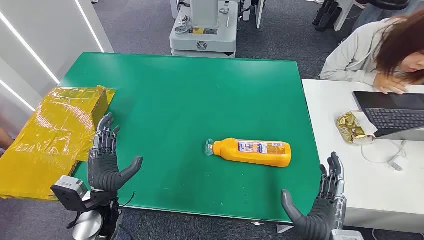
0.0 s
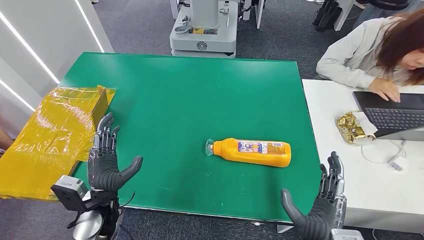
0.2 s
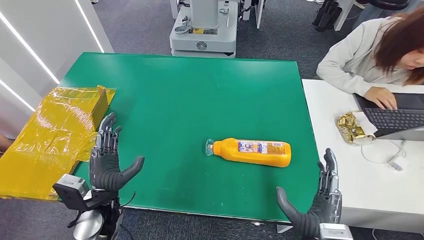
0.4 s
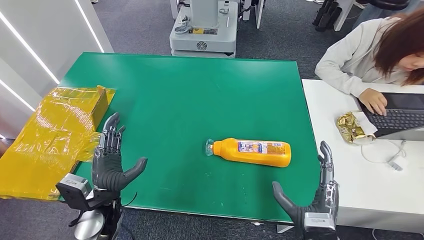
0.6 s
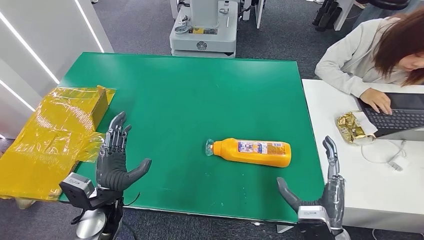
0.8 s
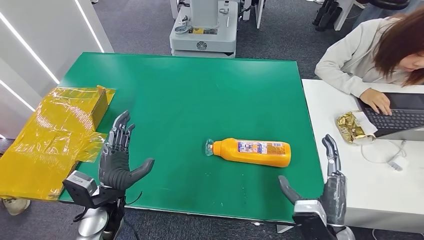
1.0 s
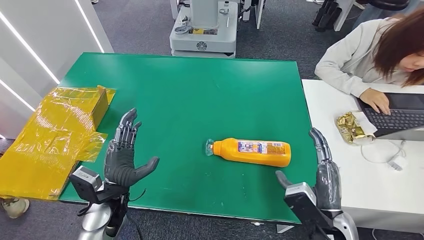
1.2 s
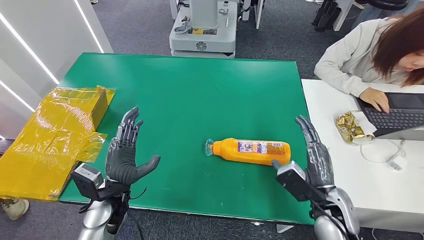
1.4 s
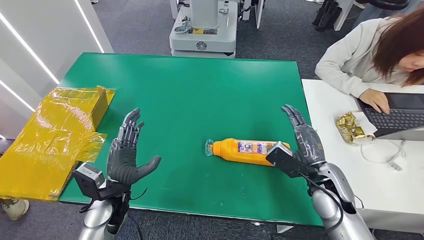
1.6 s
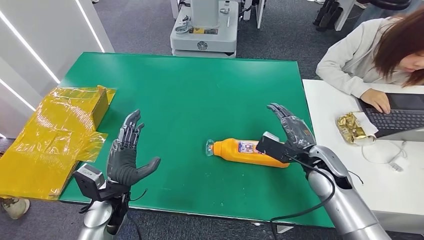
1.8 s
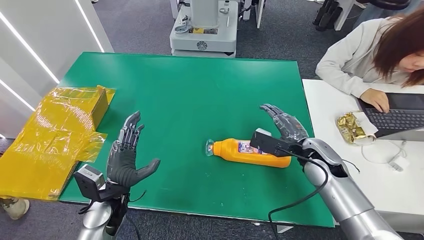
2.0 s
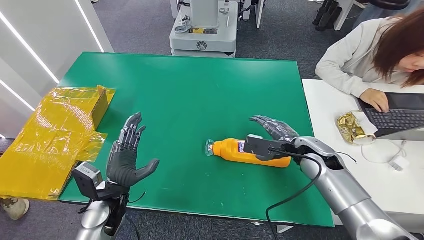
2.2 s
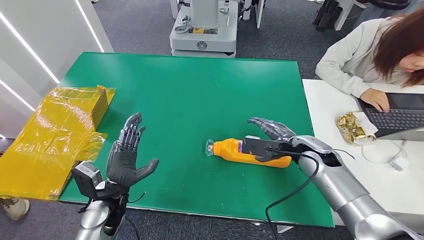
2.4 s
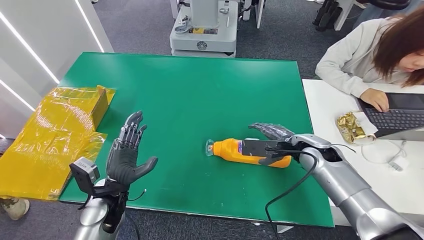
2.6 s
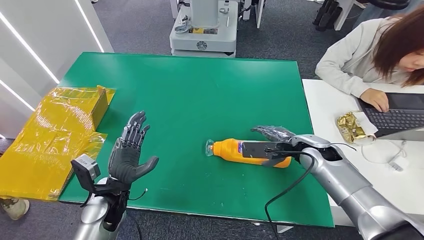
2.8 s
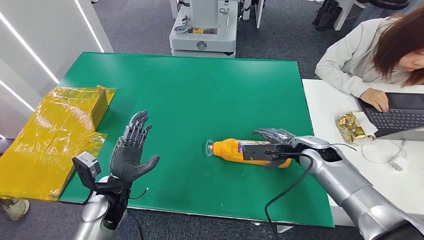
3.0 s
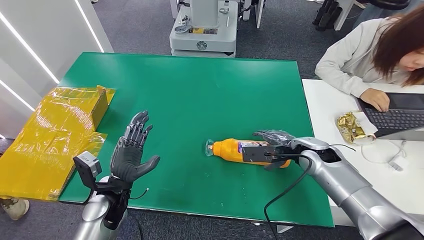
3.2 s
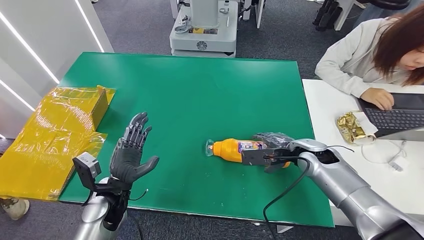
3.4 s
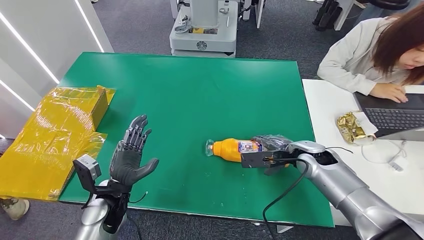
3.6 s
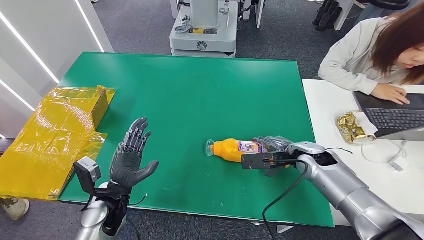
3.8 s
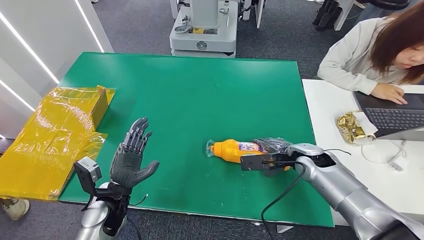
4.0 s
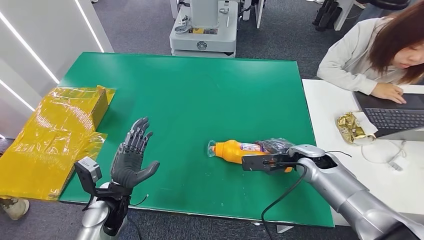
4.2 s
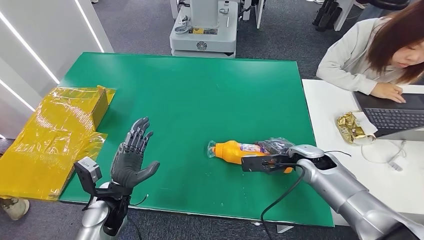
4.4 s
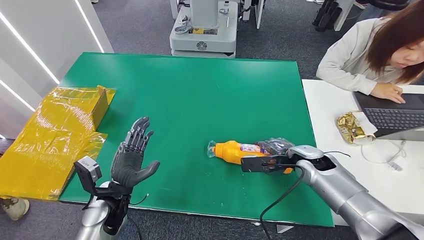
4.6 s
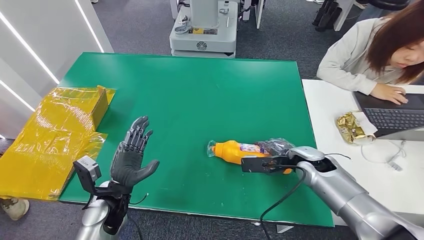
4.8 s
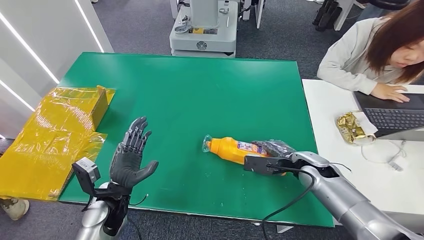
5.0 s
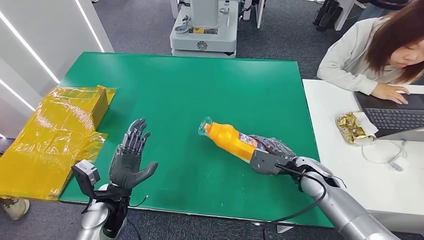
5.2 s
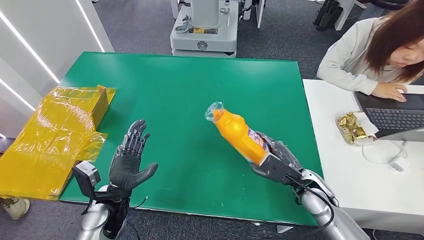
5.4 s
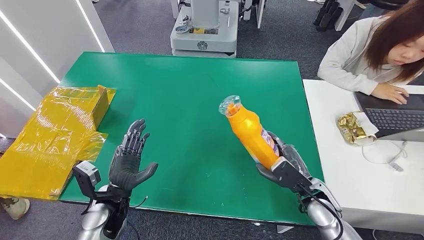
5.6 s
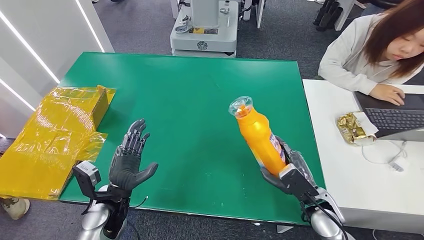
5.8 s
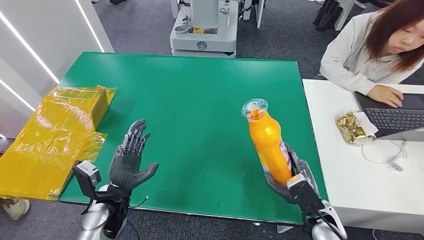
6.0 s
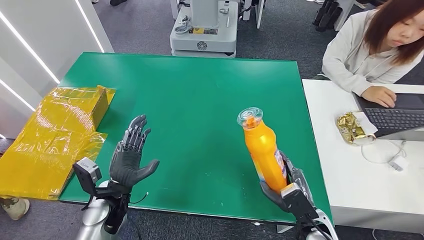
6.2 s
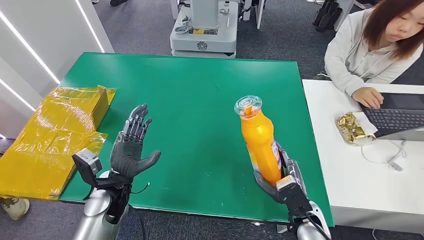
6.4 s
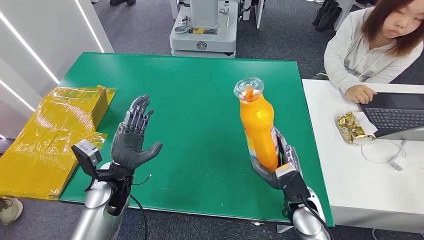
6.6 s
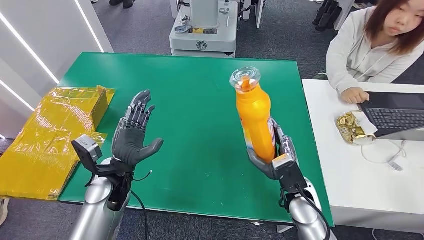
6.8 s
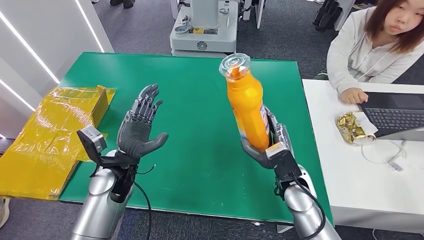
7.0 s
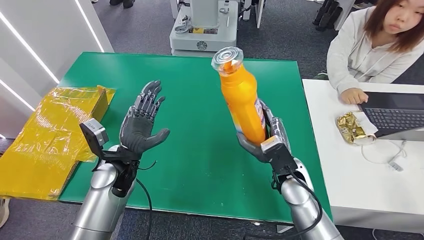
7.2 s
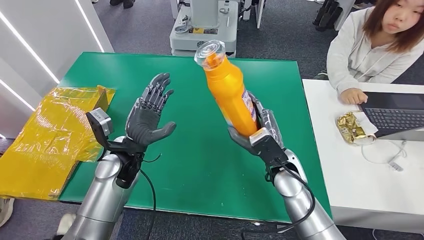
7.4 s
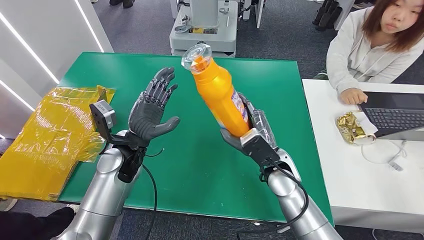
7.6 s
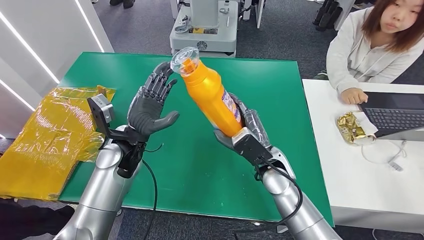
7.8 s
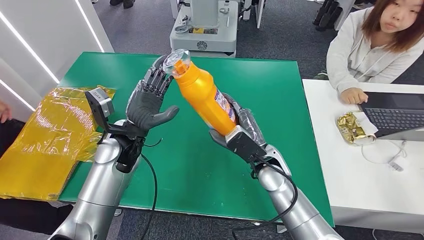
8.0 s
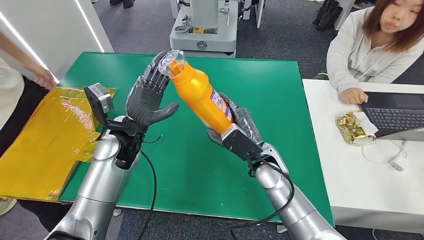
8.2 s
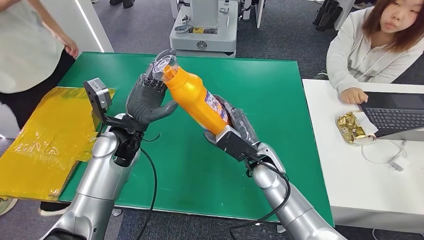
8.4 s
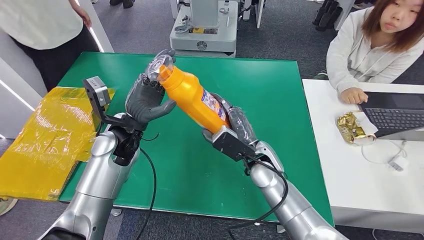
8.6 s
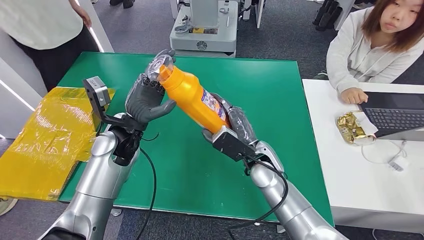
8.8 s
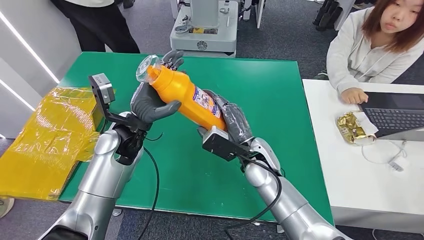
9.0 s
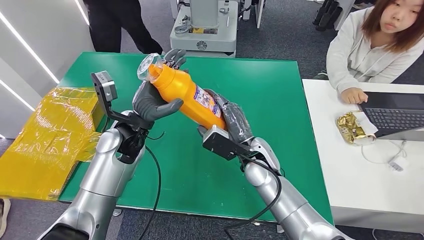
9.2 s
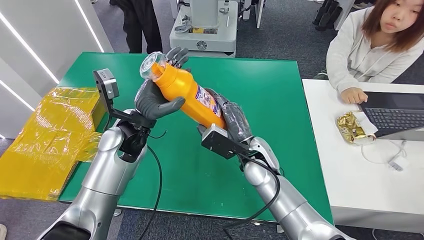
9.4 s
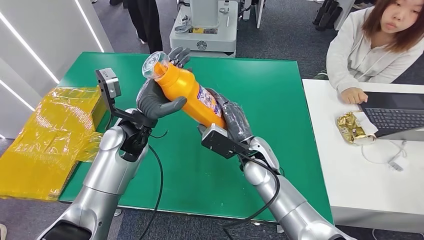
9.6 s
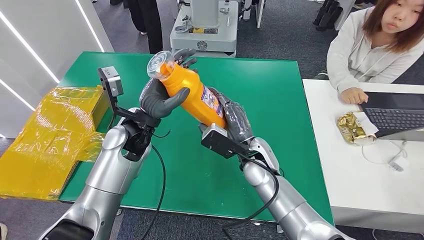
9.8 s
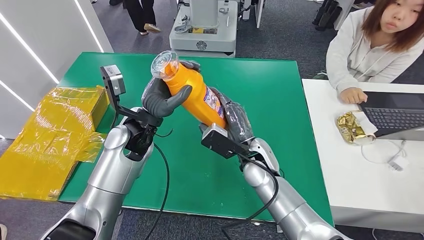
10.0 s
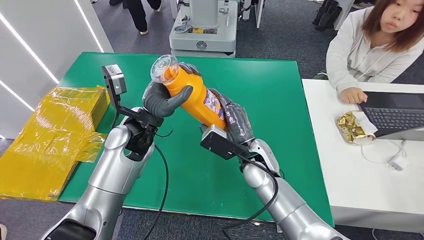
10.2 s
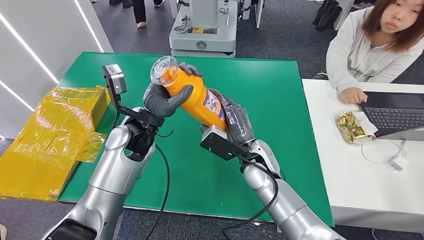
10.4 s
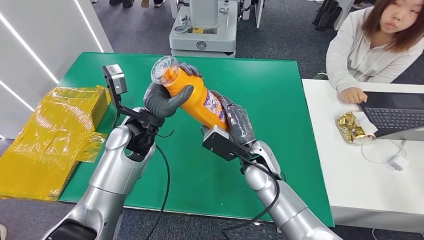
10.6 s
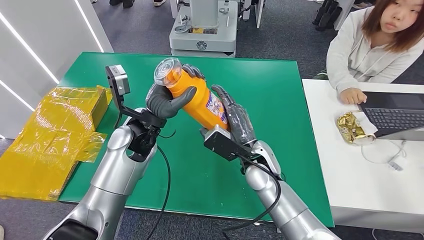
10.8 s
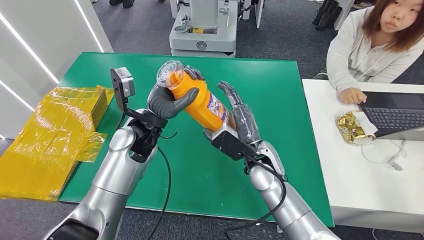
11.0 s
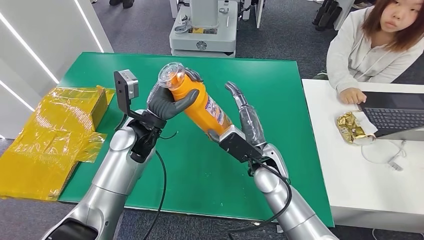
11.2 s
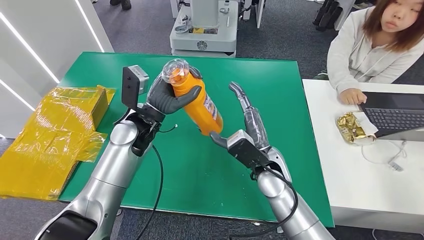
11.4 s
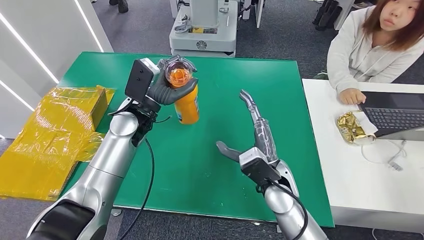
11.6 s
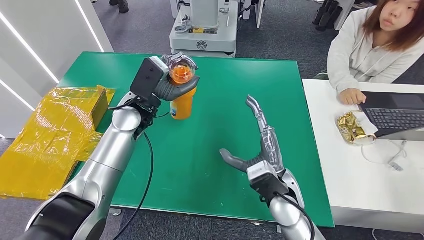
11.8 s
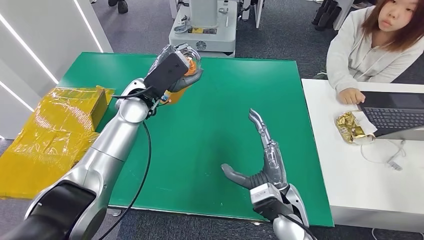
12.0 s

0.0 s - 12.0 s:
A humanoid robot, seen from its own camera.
Step, 0.0 s - 6.6 s: Pick up the bottle from the table.
1.6 s - 3.0 s: The right hand goes roughly 10 cm forward.
3.0 s - 4.4 s: The hands make only small movements.
4.4 s - 6.0 s: The right hand travels backward and downward by about 15 cm.
9.0 s - 10.4 s: The hands stay close to where they were, moving slightly.

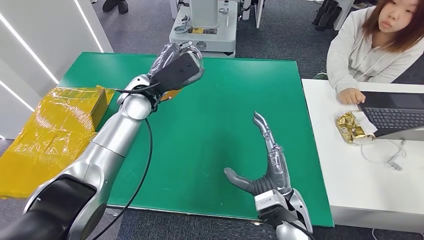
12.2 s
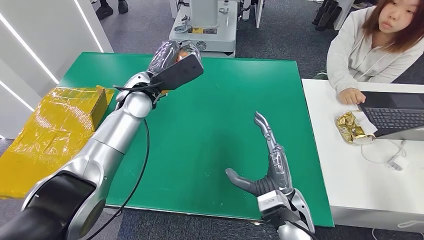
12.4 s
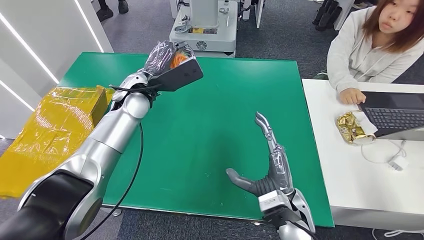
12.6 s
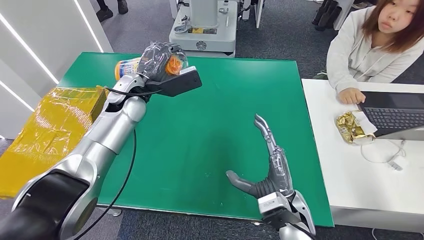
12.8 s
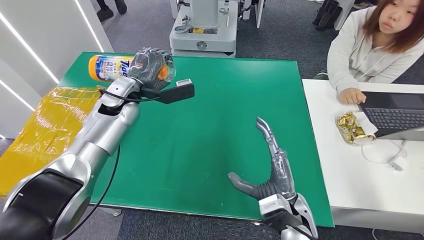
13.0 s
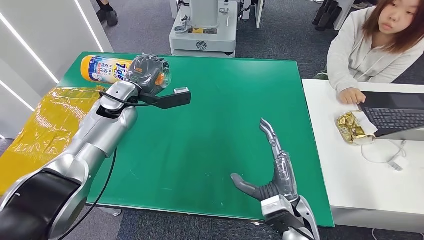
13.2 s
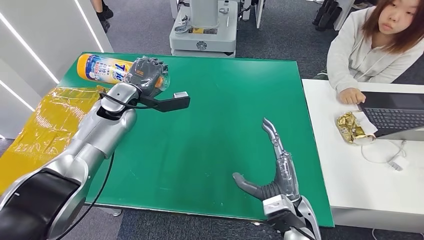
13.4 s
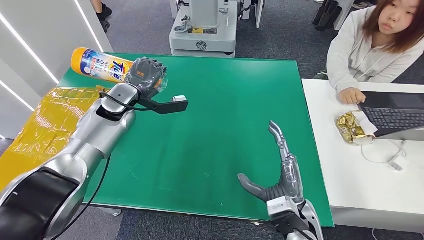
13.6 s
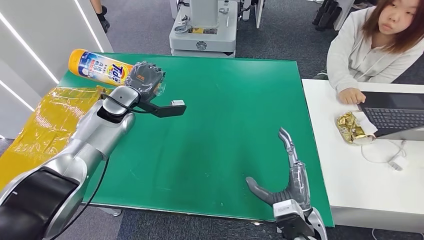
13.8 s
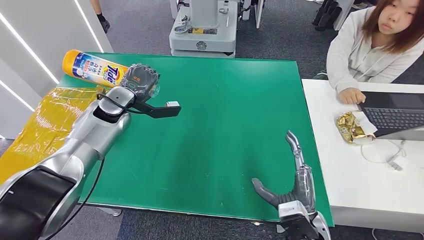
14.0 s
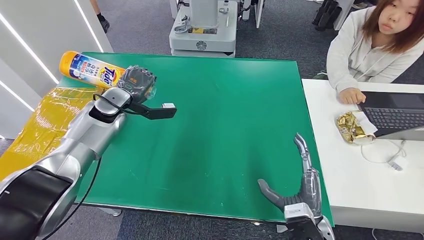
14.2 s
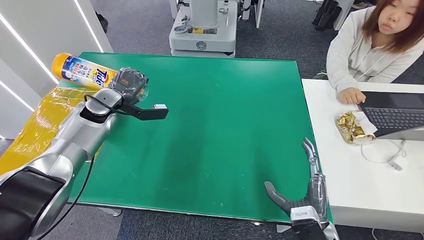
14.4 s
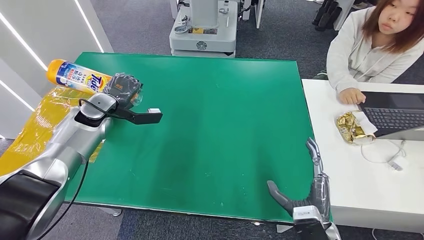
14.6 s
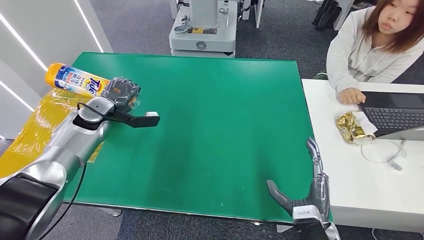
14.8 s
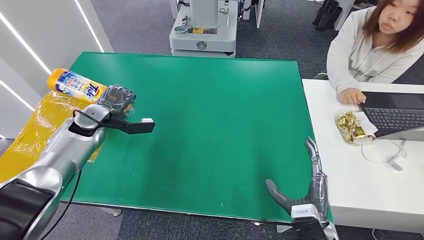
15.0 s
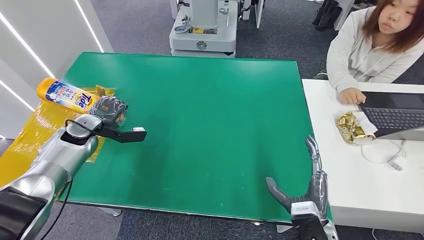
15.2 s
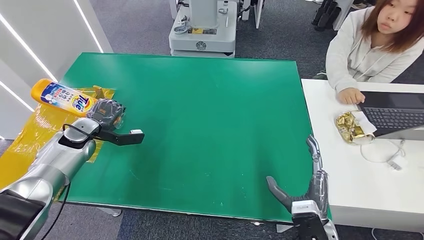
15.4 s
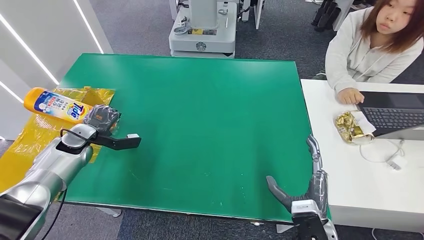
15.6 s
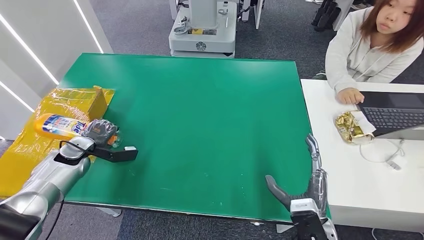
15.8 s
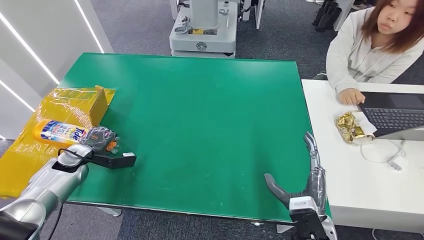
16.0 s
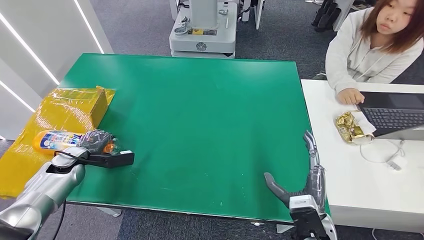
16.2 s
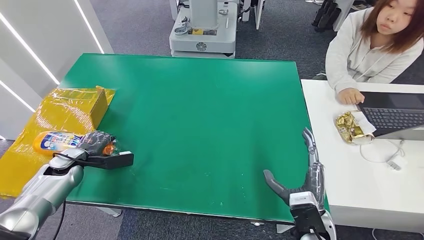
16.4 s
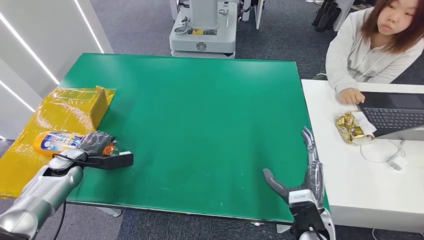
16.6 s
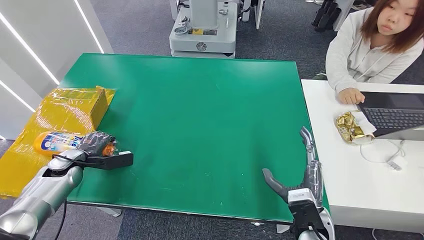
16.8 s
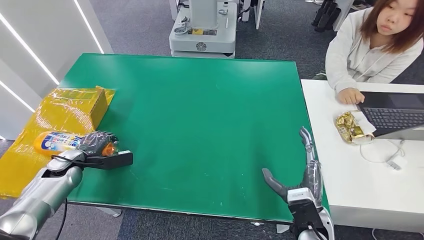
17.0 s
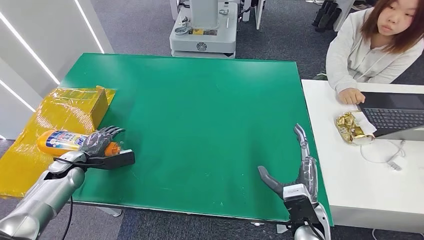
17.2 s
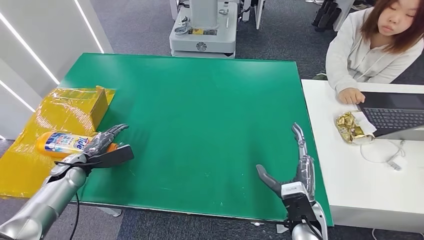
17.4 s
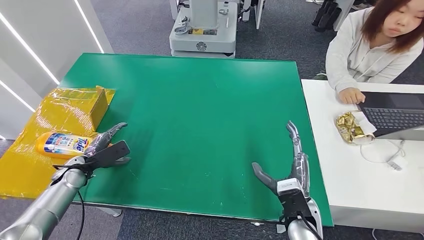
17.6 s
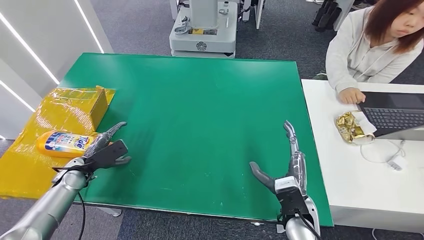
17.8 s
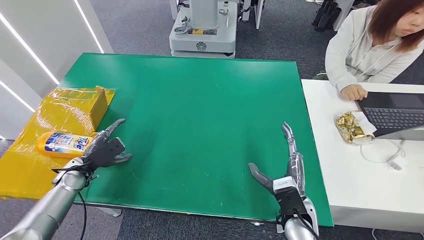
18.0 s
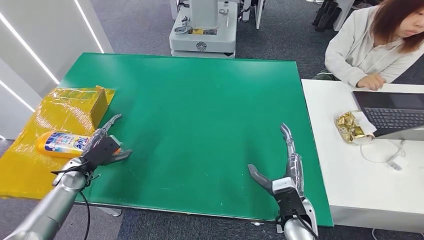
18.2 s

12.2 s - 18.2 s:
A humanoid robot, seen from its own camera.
Step, 12.2 s - 18.2 s: Turn the bottle to the front side.
13.8 s - 15.2 s: The left hand travels to the left and downward by approximately 15 cm.
15.2 s - 16.6 s: The left hand moves downward and backward, about 10 cm.
